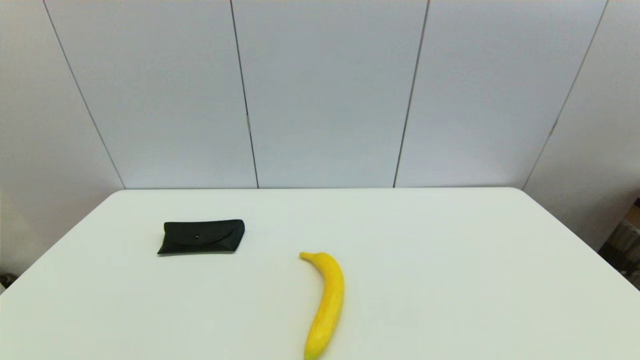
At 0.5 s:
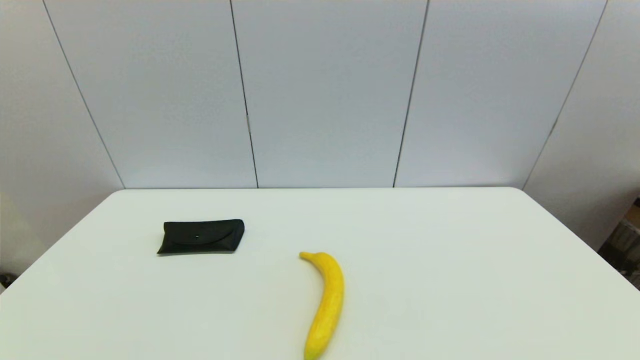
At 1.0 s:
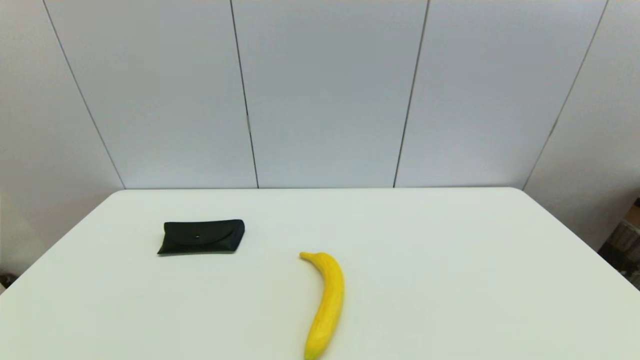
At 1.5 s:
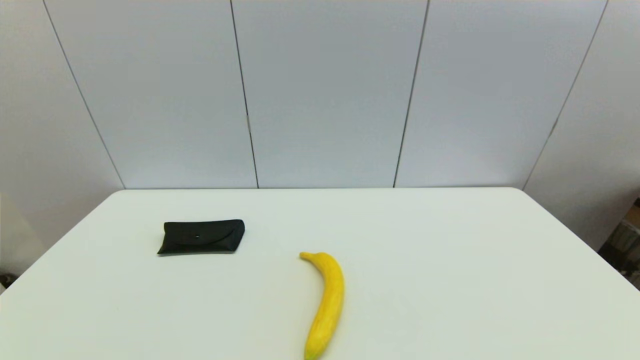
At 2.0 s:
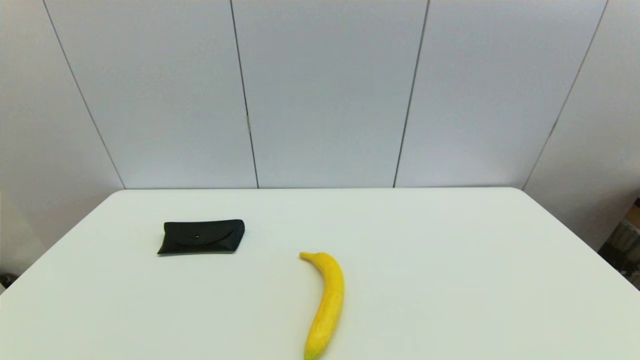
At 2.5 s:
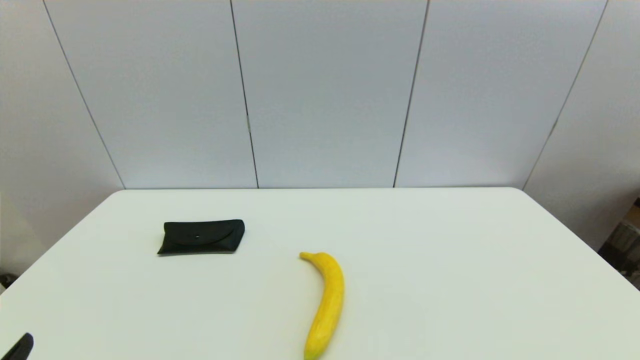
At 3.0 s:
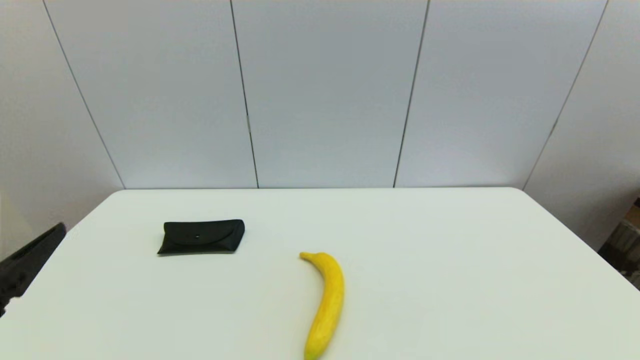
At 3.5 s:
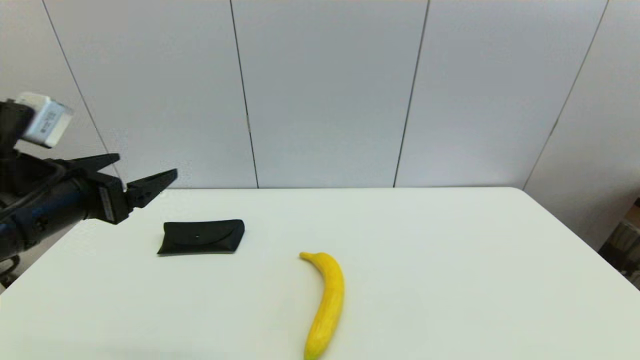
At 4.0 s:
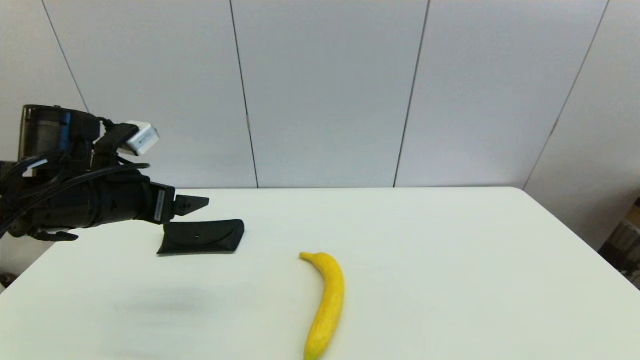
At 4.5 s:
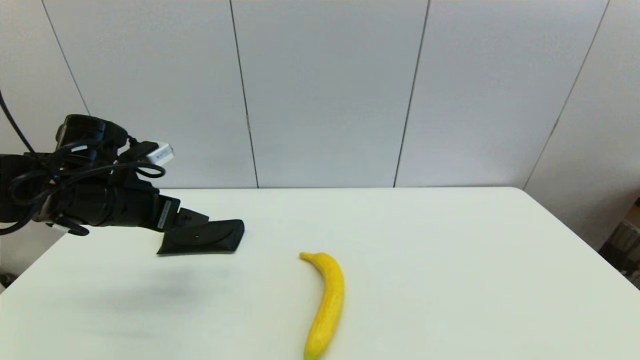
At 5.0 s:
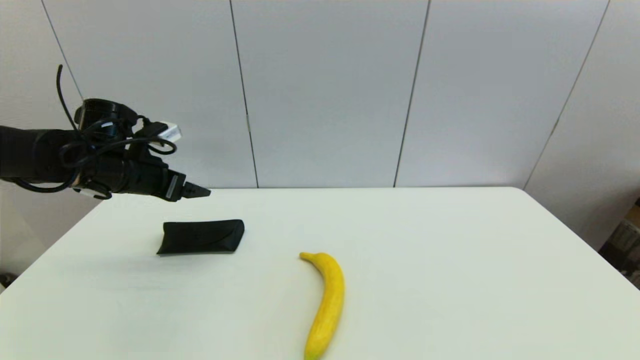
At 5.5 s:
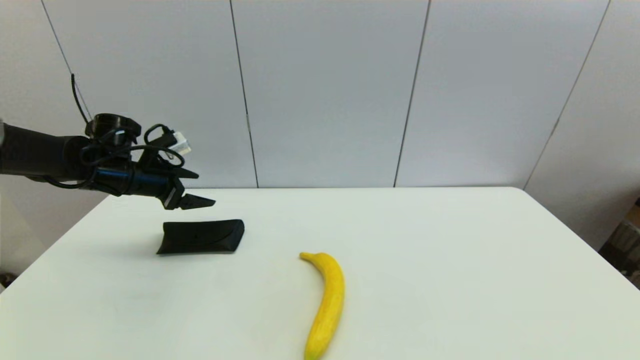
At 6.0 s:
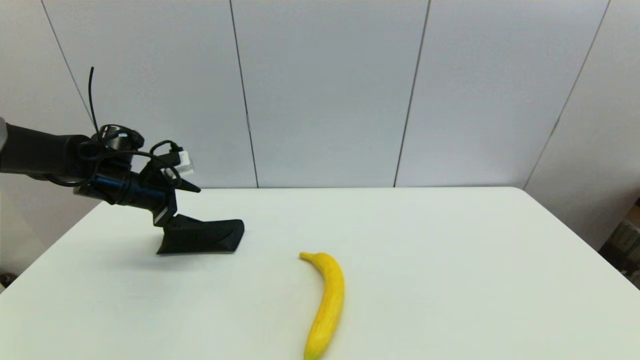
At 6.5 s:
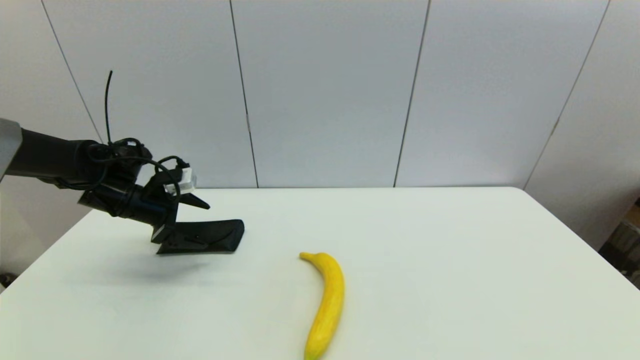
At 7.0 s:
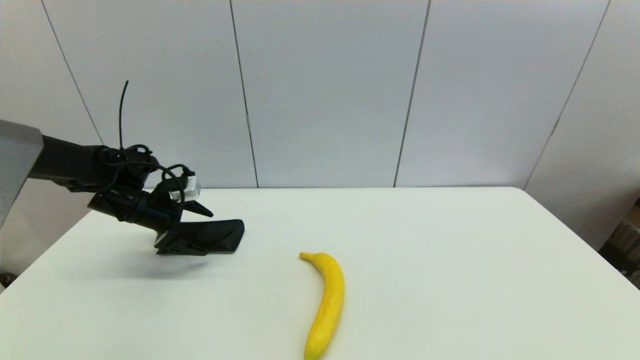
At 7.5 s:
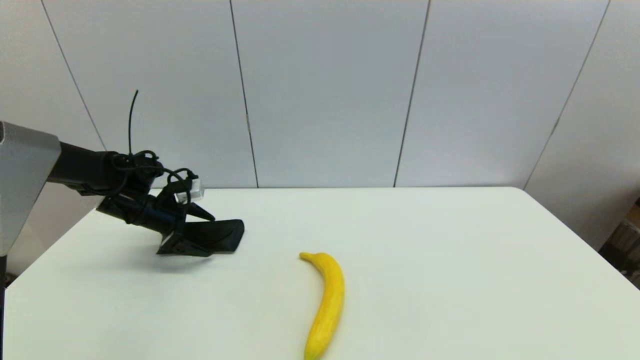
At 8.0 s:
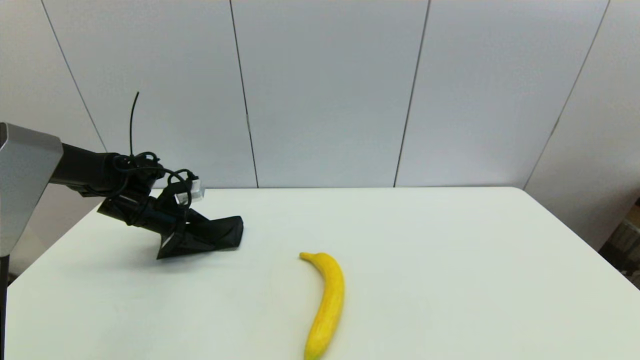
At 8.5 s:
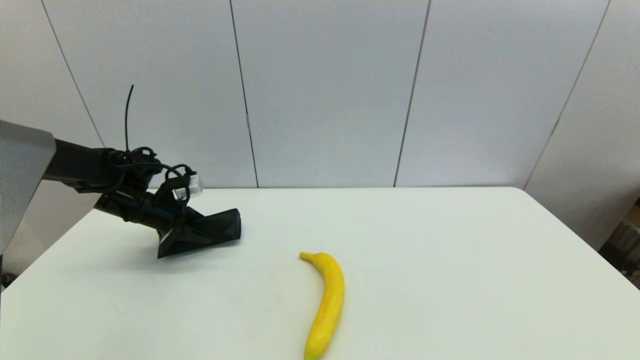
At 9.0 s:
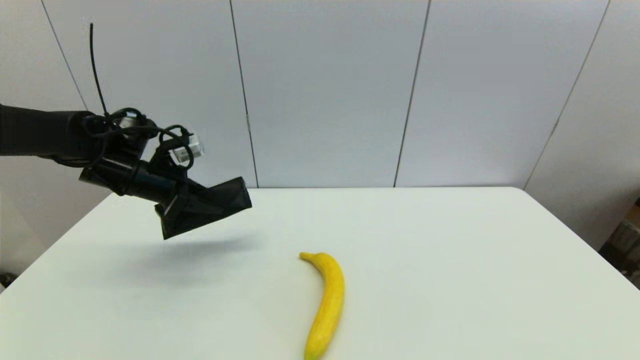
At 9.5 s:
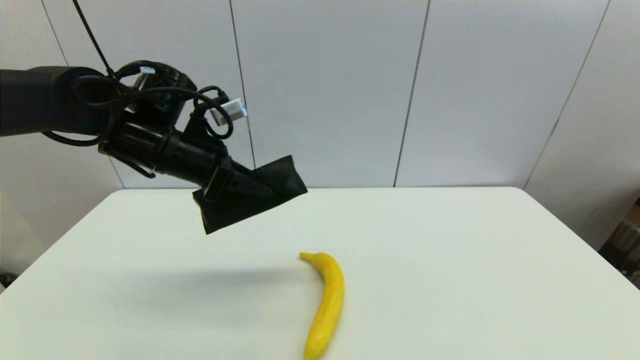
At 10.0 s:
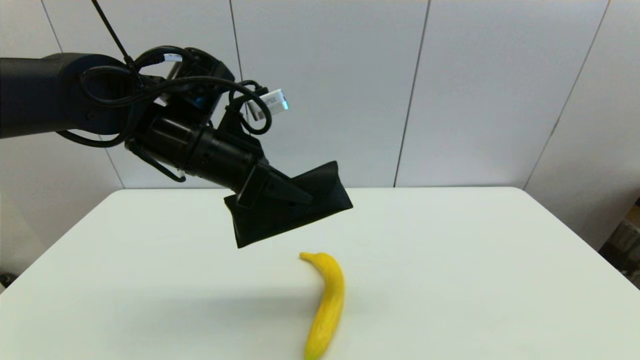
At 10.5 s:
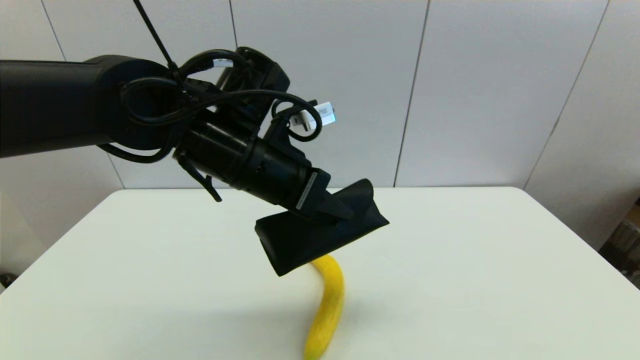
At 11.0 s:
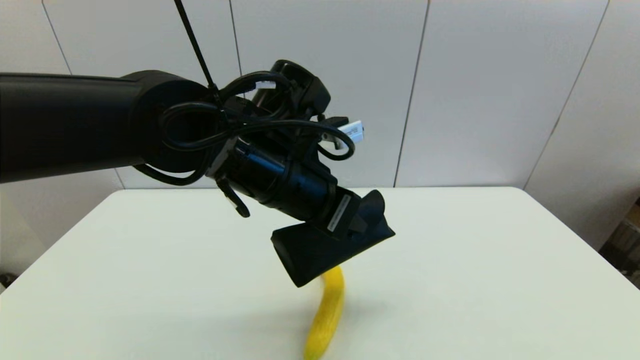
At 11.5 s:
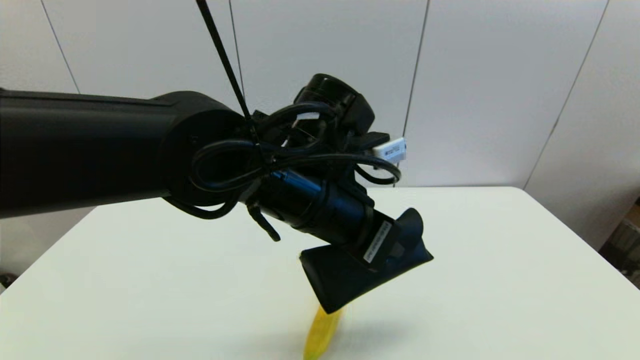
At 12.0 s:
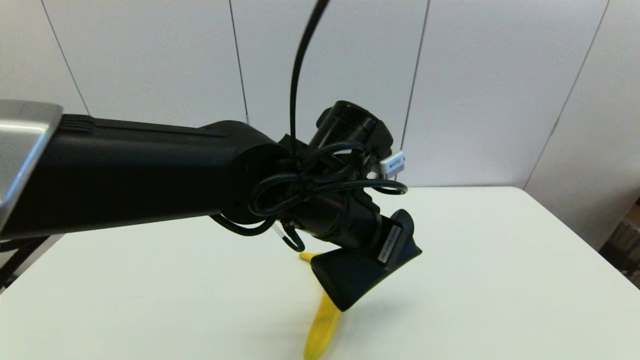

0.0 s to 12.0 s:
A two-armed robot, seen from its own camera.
Step, 2.5 to 8.0 s: Grasp the glasses case with left gripper.
0.0 to 2.0 s: Both grippers stay put.
2.0 to 4.0 s: The left gripper moves forward and upward, roughly 30 cm.
4.0 to 6.0 s: The left gripper travels forward, to the left and downward by roughly 15 cm.
6.0 to 8.0 s: The left gripper moves downward, about 5 cm, and closes up.
8.0 to 10.0 s: The left gripper shifts about 30 cm to the right, upward and backward, and closes its fingers.
10.0 to 12.0 s: The left gripper shifts about 15 cm to the right.

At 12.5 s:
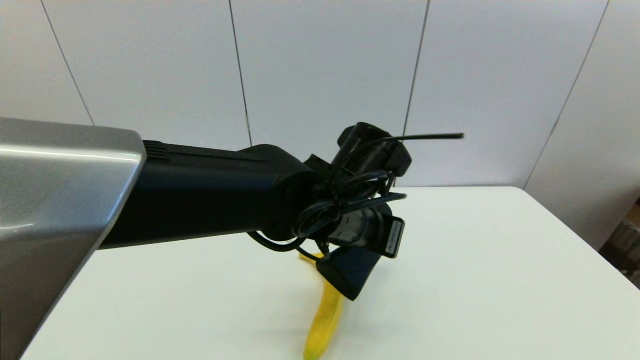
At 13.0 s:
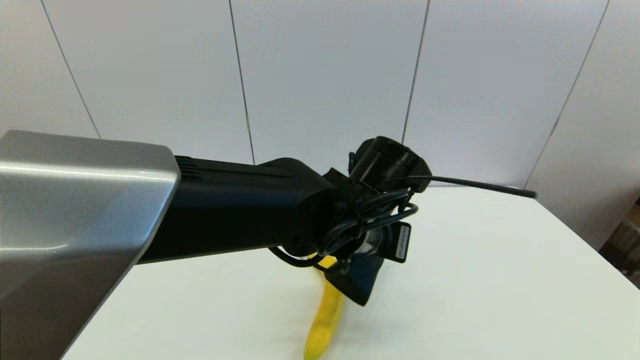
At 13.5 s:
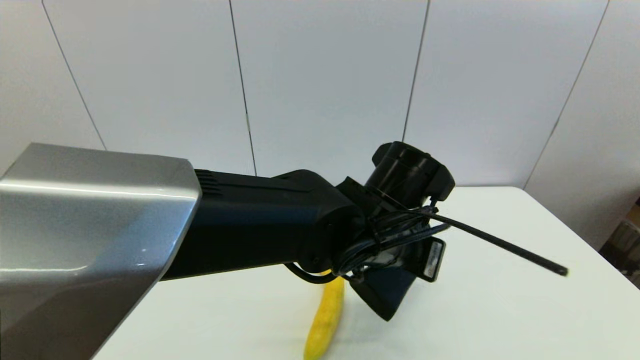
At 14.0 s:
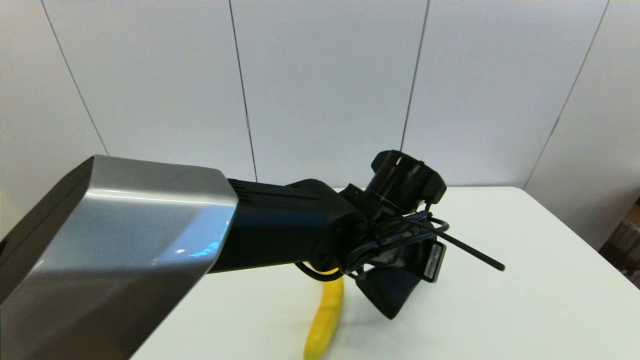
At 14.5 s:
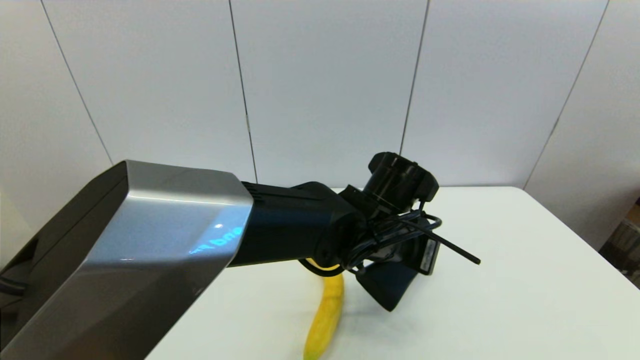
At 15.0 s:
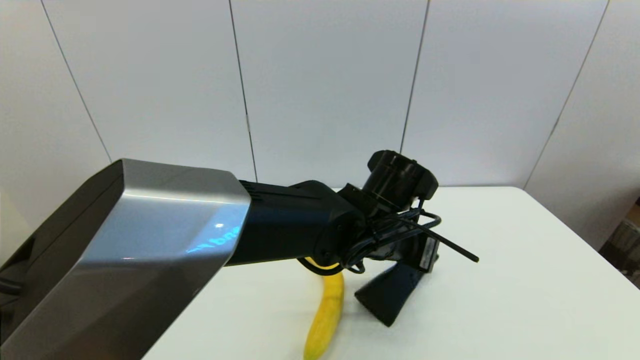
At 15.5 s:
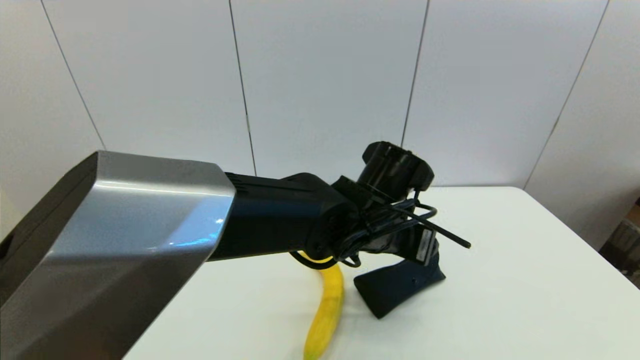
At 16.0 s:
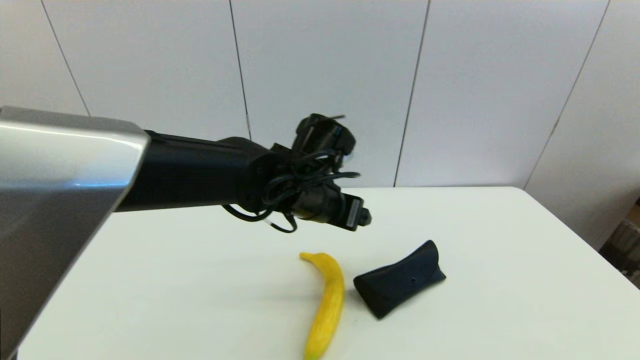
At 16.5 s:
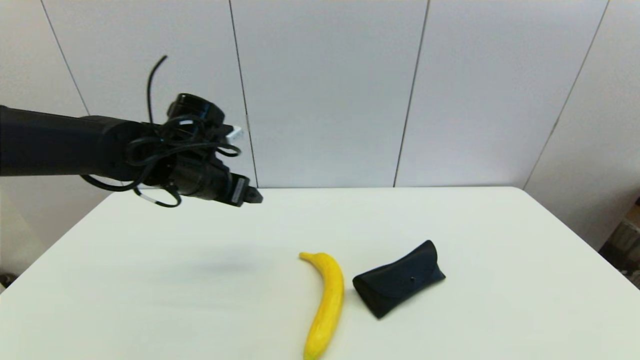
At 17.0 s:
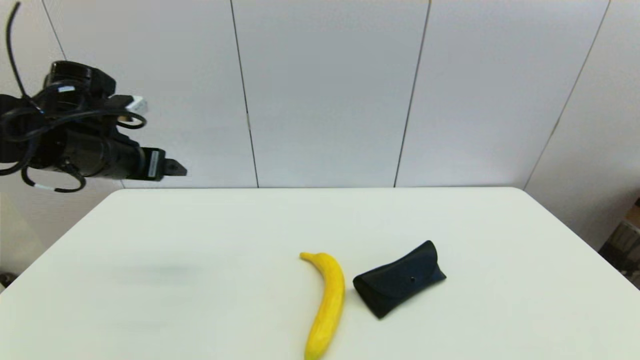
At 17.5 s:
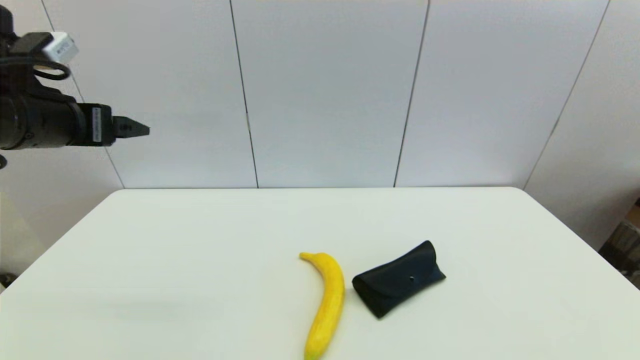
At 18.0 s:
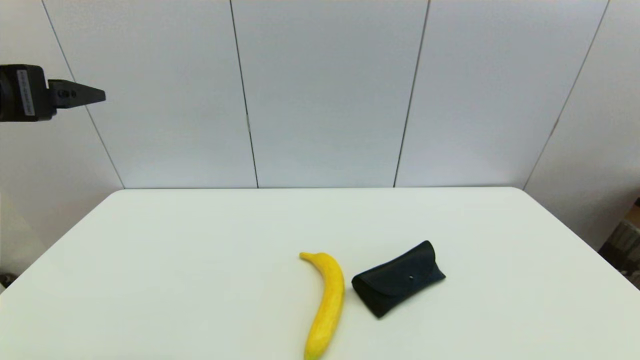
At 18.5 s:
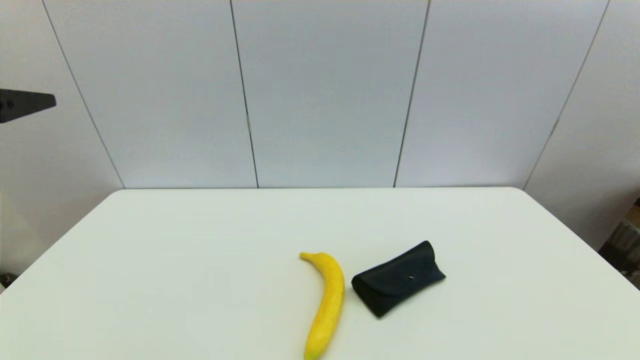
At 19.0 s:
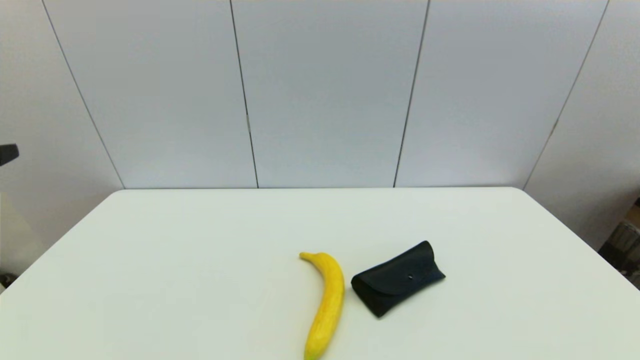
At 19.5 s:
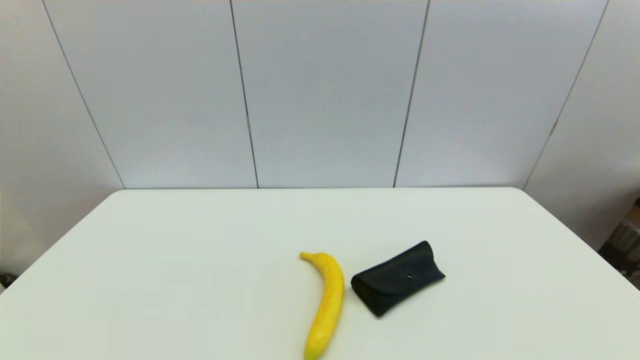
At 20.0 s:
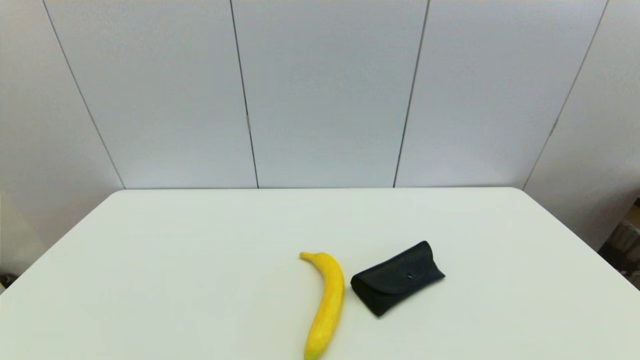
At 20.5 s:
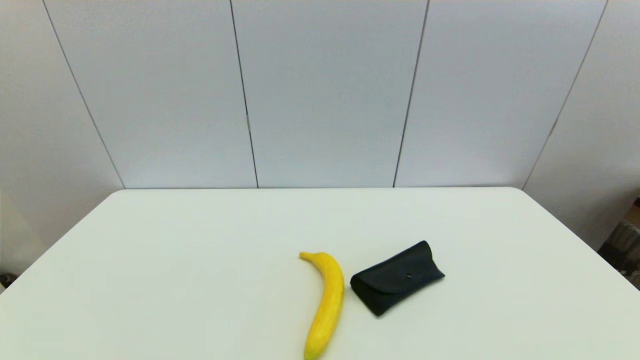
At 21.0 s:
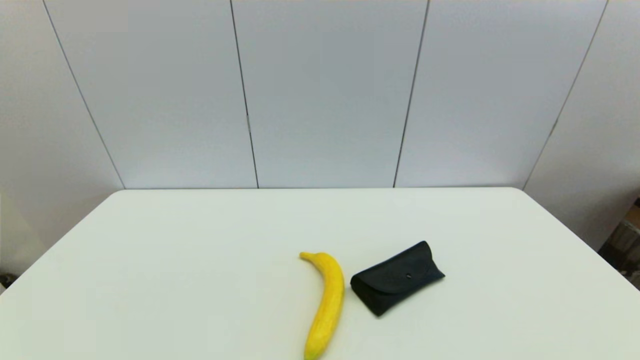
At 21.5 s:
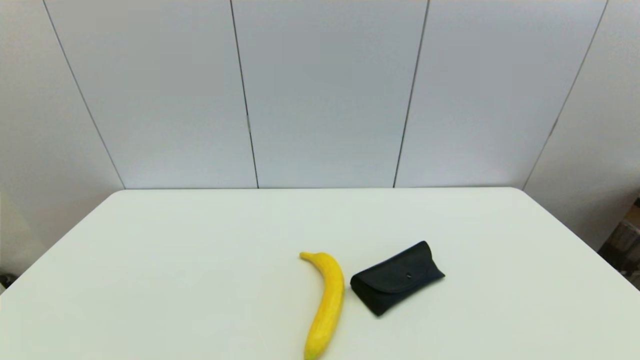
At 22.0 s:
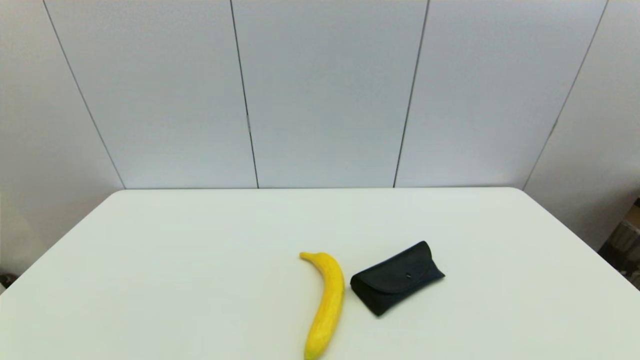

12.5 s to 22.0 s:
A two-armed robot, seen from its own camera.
Step, 12.5 to 15.0 s: Place the glasses case on the table with left gripper.
12.5 to 14.5 s: The left gripper shifts by about 5 cm.
14.5 to 16.5 s: The left gripper heads to the left, covering roughly 25 cm, and opens.
16.5 to 18.0 s: The left gripper shifts about 25 cm upward, backward and to the left.
18.0 to 20.0 s: The left gripper moves backward and downward, approximately 25 cm.
